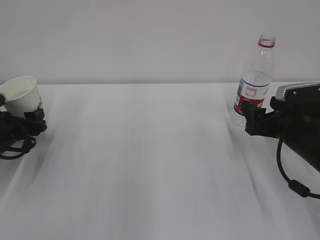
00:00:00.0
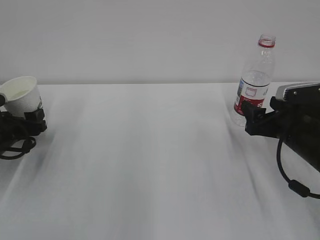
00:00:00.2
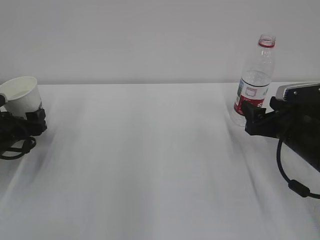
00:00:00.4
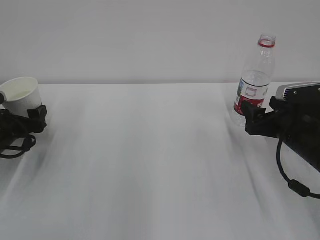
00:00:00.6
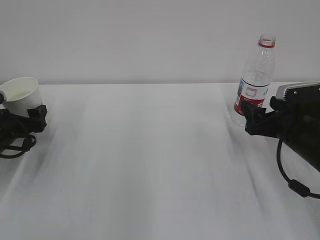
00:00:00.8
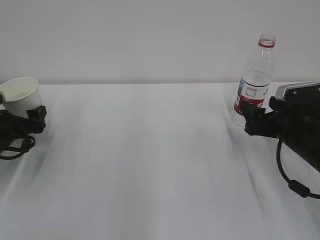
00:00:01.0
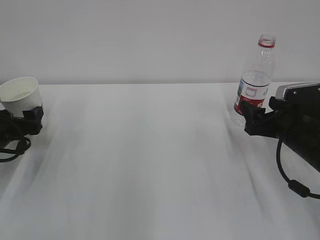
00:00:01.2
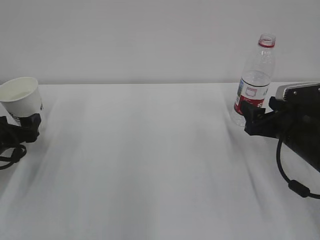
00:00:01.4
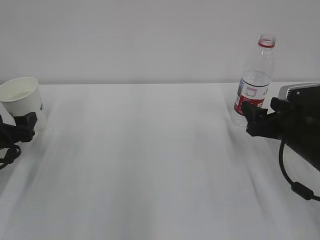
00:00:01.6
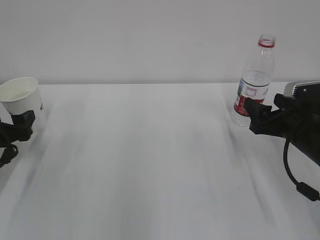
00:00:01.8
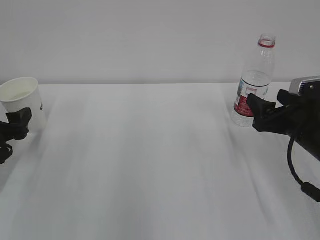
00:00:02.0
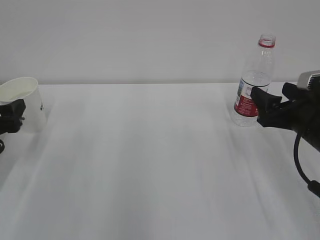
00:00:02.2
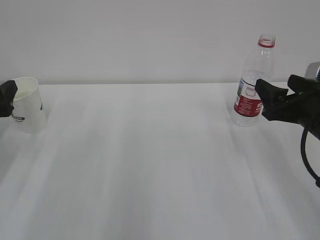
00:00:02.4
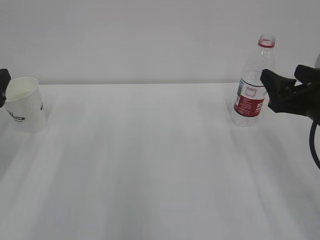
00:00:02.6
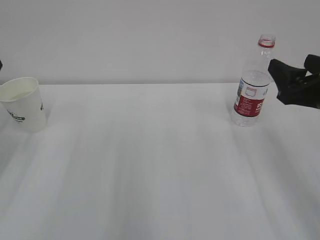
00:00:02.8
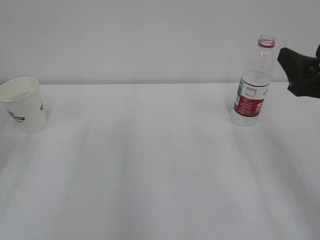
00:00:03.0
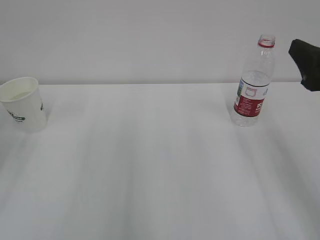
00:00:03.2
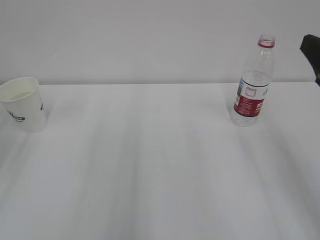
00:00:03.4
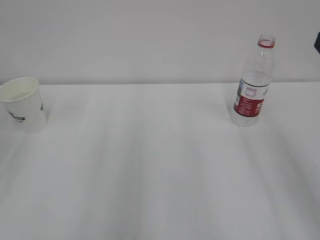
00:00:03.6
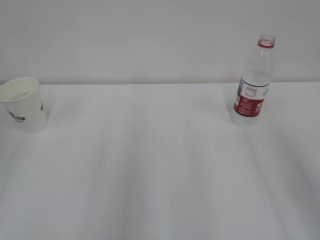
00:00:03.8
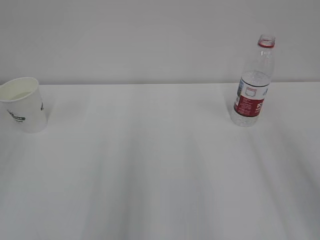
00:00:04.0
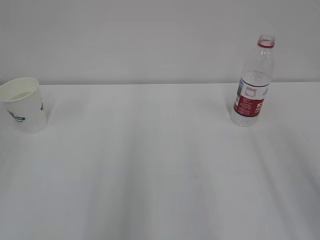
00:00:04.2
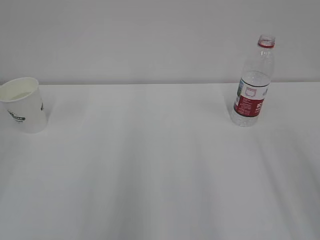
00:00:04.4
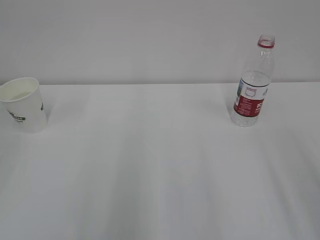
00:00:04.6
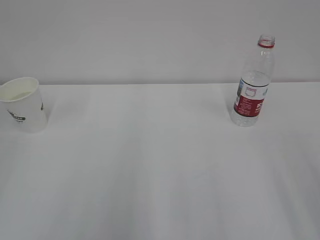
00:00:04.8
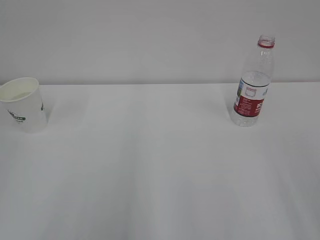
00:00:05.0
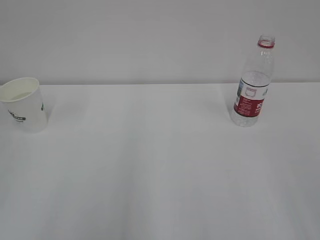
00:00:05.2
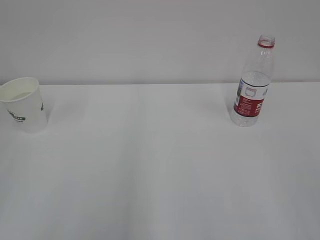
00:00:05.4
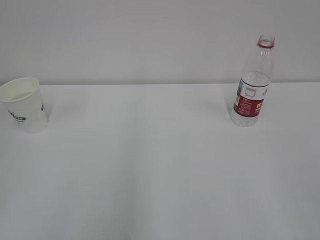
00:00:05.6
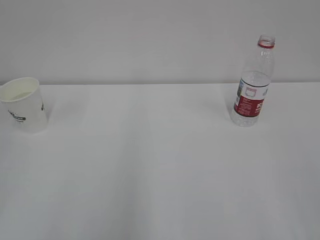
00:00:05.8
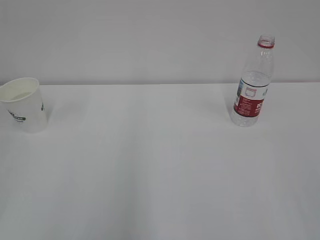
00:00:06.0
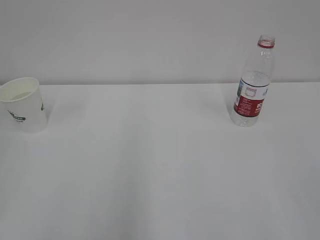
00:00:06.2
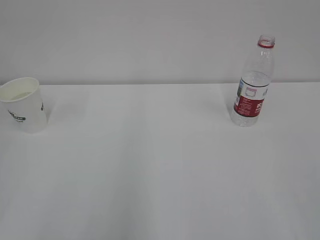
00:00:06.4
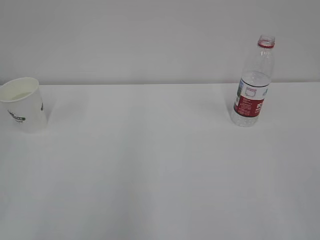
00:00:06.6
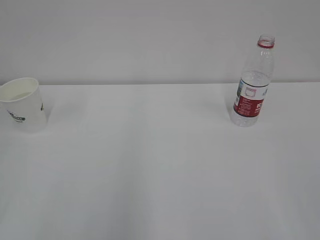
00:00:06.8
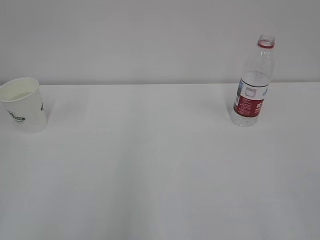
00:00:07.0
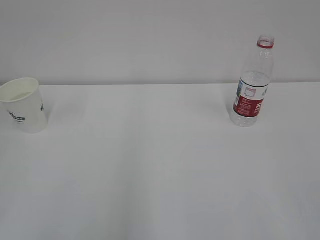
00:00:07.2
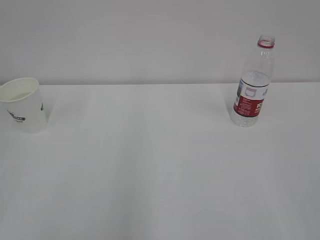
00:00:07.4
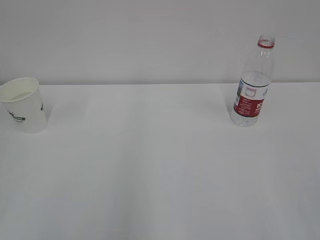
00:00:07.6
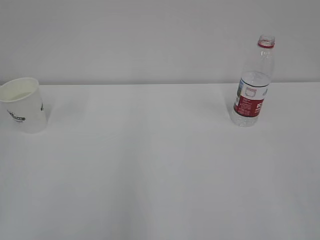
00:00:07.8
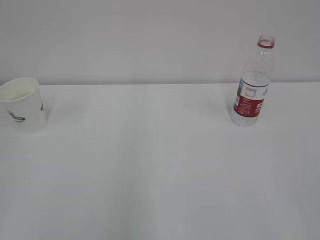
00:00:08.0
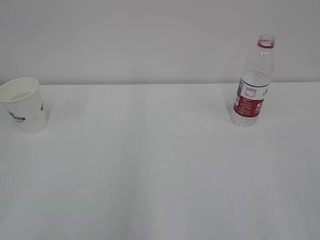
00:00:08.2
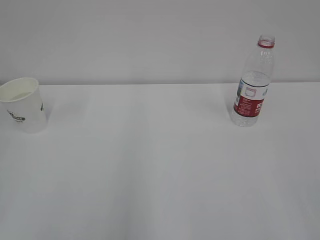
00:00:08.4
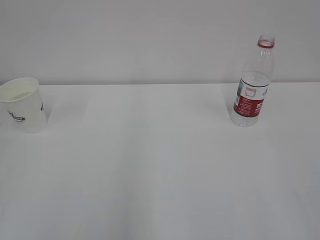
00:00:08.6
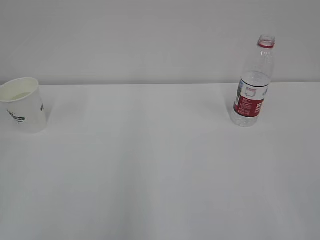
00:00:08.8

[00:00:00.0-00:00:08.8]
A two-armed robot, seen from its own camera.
00:00:00.0 to 00:00:01.4: The left gripper opens its fingers.
00:00:01.4 to 00:00:03.0: The grippers both shift upward and backward by some 15 cm.
00:00:03.0 to 00:00:04.4: The right gripper goes about 15 cm backward and upward.
00:00:07.4 to 00:00:08.8: The two grippers keep their place.

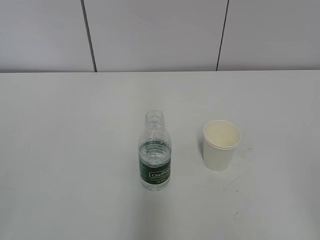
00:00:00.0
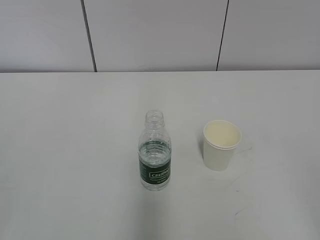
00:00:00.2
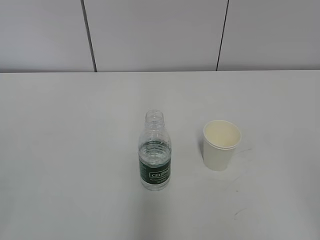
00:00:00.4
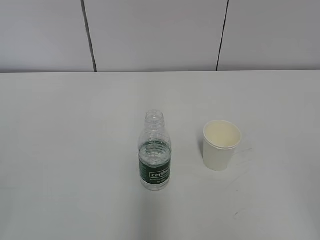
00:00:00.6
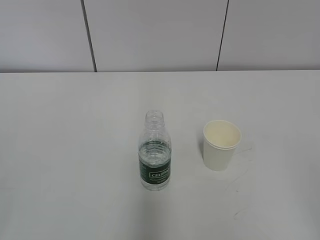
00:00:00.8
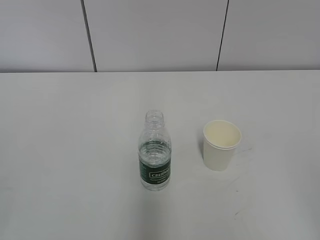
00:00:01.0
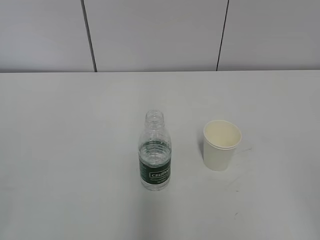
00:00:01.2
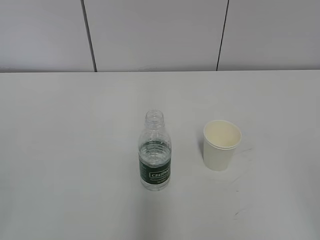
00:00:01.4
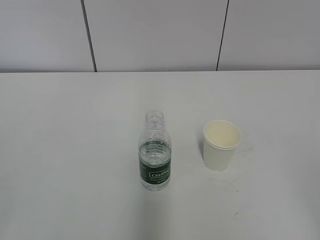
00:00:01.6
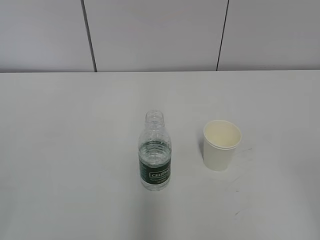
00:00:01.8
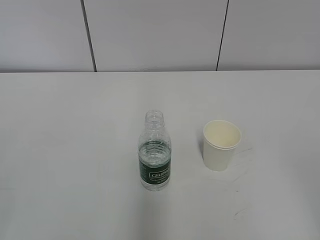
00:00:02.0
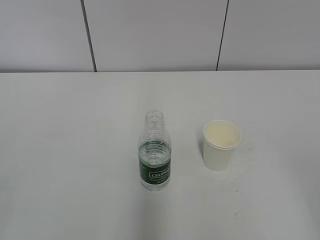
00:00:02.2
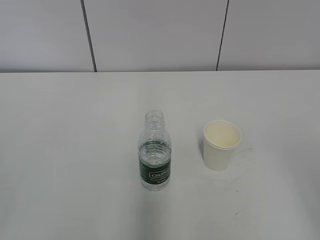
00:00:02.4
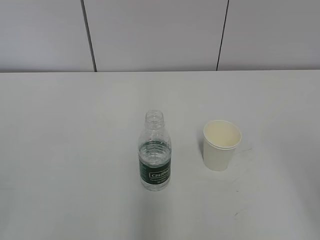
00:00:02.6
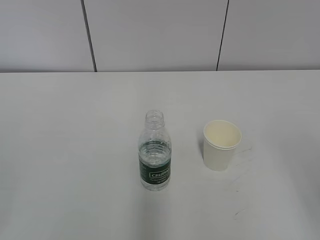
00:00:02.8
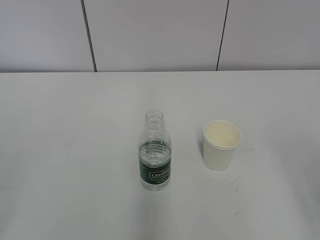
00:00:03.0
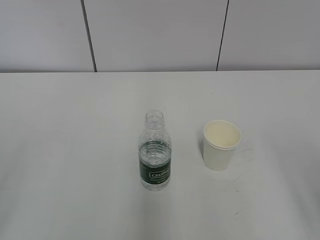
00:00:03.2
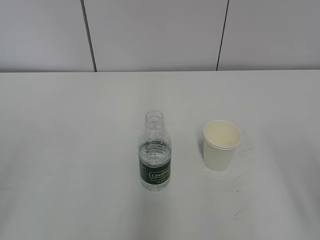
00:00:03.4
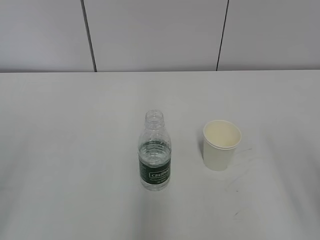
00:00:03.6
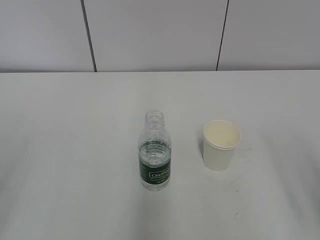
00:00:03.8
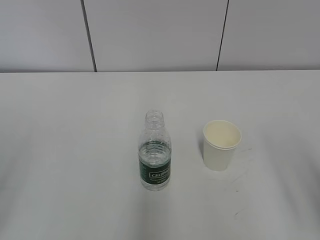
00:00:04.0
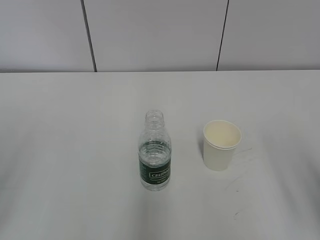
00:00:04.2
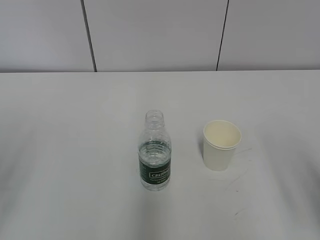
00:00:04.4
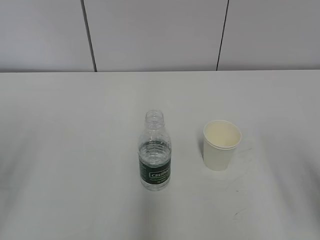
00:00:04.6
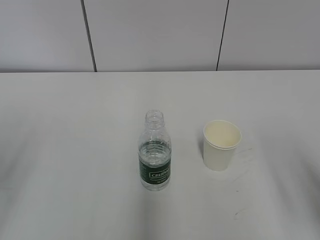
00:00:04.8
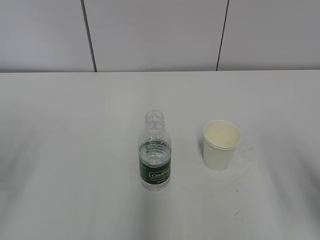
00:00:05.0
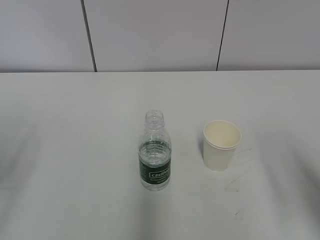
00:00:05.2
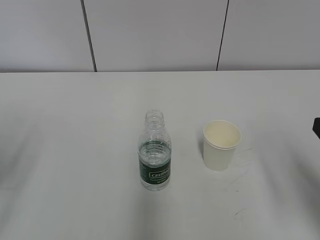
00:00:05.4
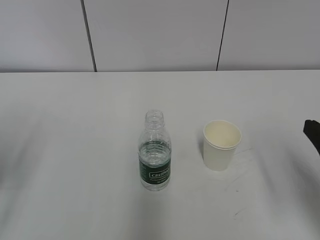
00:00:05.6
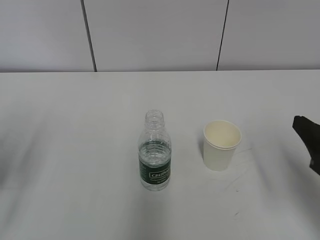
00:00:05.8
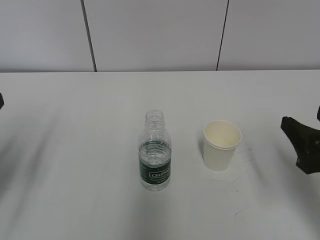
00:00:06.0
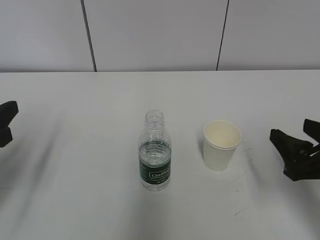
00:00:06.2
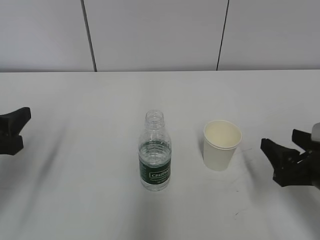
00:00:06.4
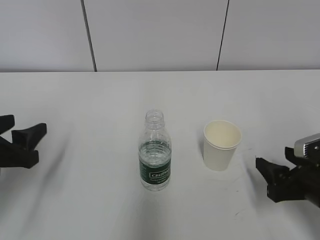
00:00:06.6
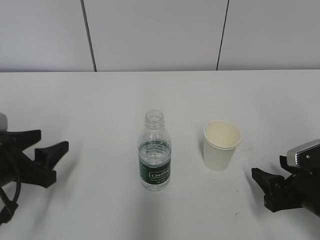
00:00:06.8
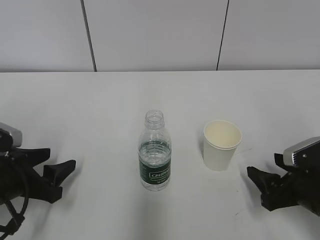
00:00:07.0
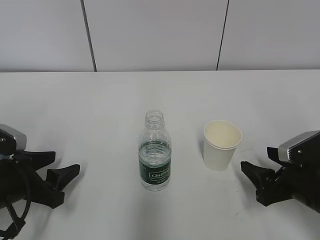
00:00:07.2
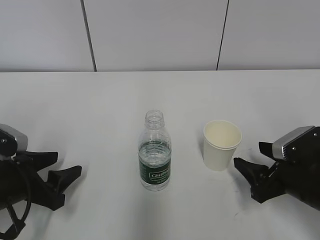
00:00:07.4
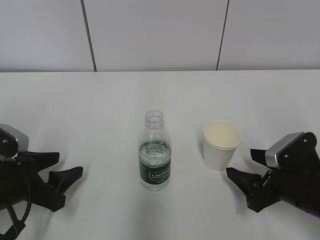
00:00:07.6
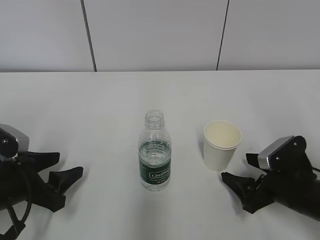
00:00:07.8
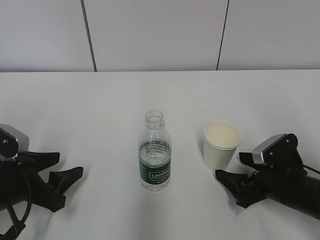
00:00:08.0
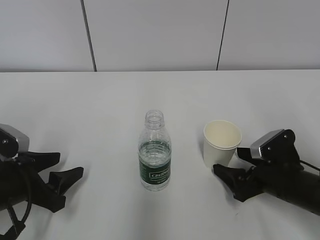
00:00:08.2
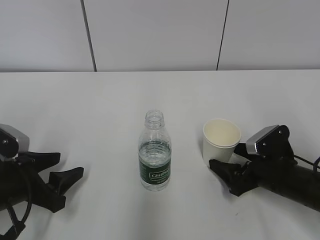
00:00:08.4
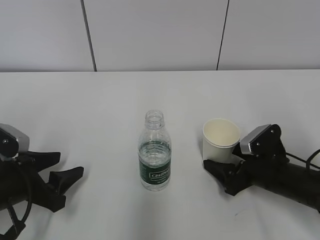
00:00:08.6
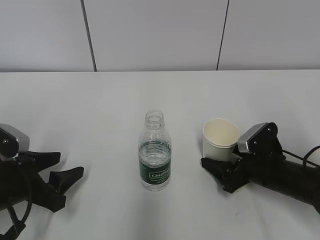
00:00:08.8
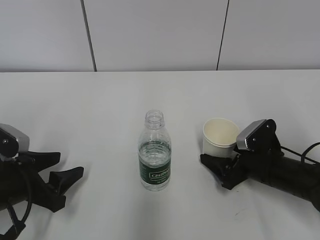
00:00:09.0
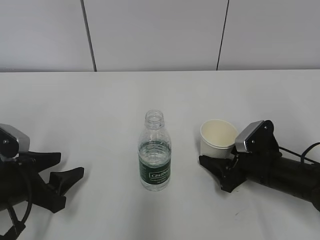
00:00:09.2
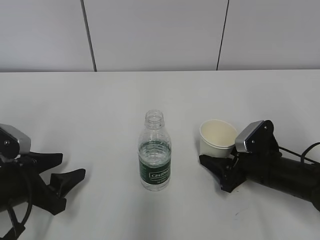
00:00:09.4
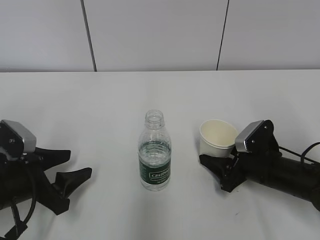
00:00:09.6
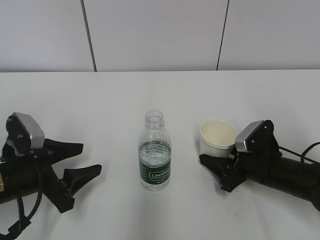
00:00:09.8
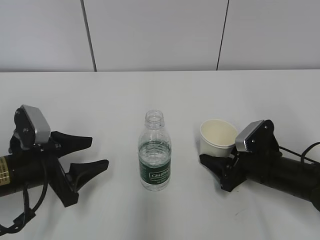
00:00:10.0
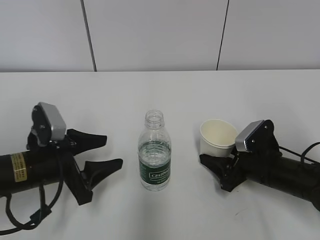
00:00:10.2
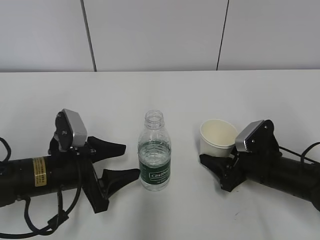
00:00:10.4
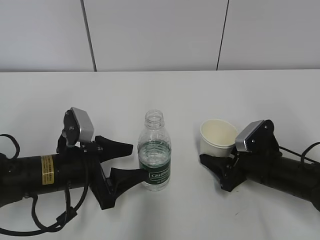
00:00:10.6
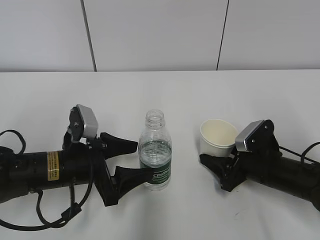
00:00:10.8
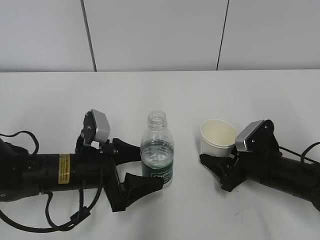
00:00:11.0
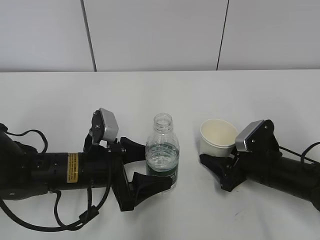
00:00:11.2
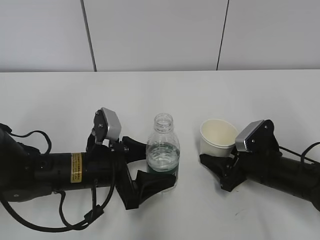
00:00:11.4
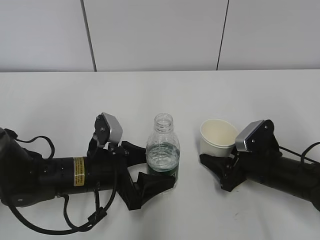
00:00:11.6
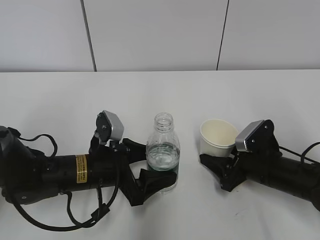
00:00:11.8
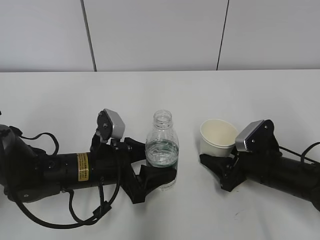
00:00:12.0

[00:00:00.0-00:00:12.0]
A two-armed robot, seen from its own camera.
Step, 00:00:00.0 to 00:00:10.2: Grab the water bottle with the left hand.
00:00:04.4 to 00:00:06.0: The left gripper travels forward by roughly 5 cm; the right gripper is displaced forward and downward by roughly 10 cm.
00:00:06.0 to 00:00:07.6: The right gripper moves downward, roughly 10 cm; the left gripper is displaced downward and to the right by approximately 15 cm.
00:00:07.6 to 00:00:09.0: The right gripper heads forward, covering approximately 5 cm.
00:00:09.0 to 00:00:10.4: The left gripper is displaced to the right by some 5 cm. Meanwhile the right gripper closes up.
00:00:10.4 to 00:00:12.0: The left gripper is displaced to the right by approximately 5 cm.

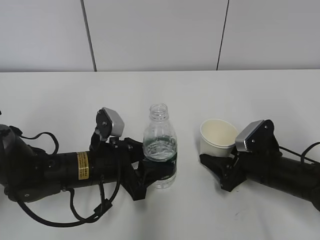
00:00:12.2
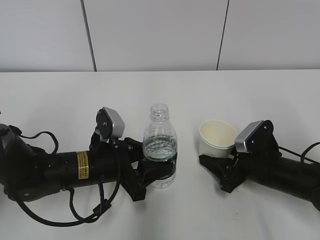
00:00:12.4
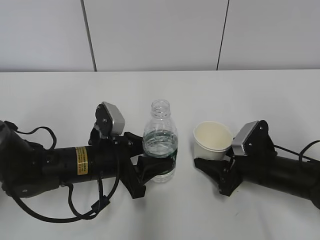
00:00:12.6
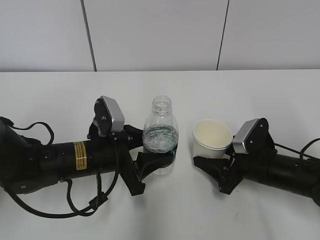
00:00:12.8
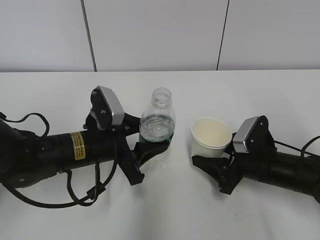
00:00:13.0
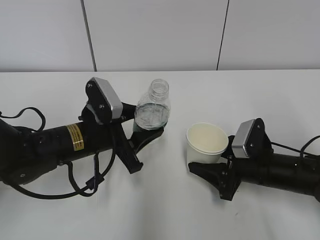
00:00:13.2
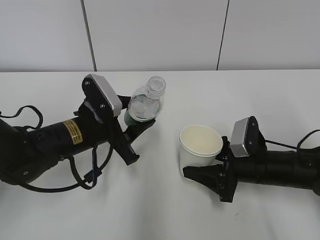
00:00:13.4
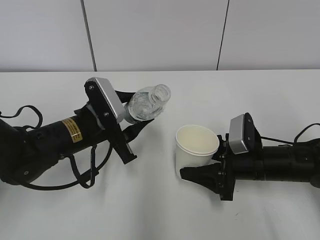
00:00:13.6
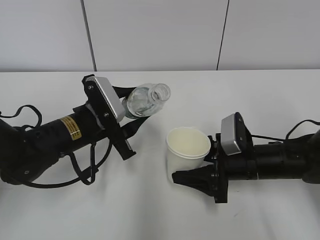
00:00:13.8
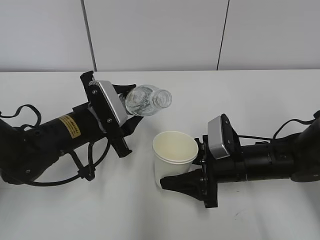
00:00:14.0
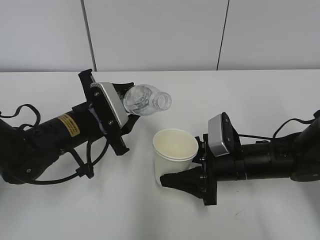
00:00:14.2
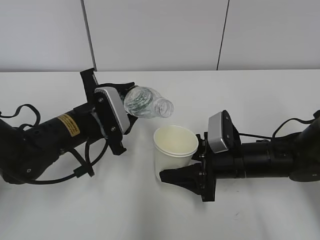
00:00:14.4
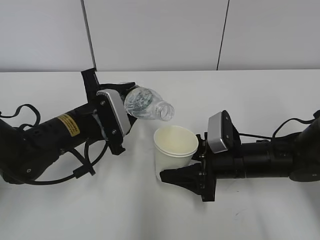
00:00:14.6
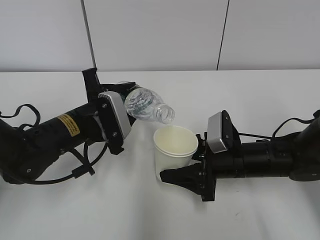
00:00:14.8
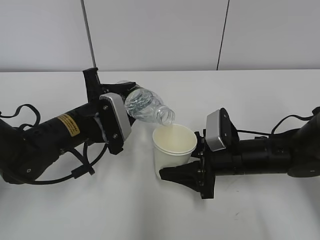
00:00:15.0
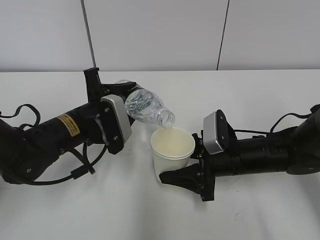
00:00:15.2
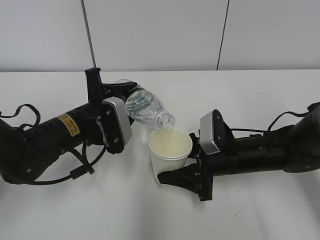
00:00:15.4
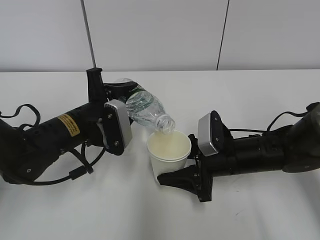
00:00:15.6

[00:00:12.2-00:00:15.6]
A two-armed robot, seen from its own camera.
00:00:12.2 to 00:00:13.8: The left gripper travels upward by approximately 5 cm.
